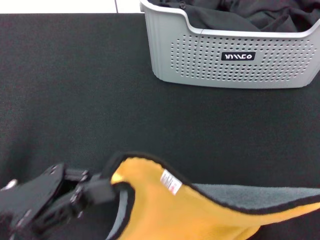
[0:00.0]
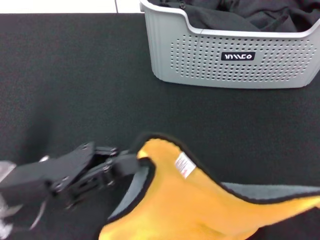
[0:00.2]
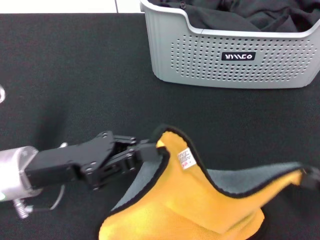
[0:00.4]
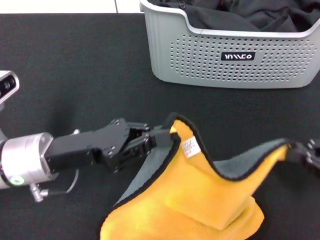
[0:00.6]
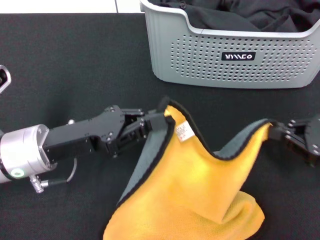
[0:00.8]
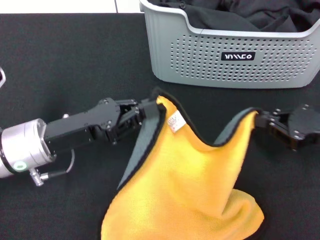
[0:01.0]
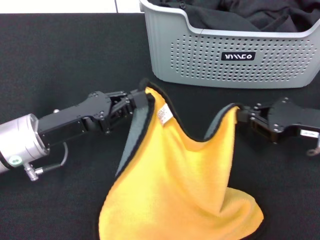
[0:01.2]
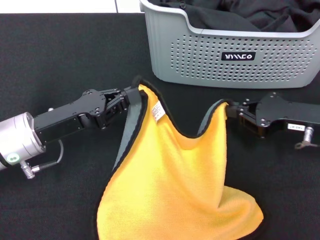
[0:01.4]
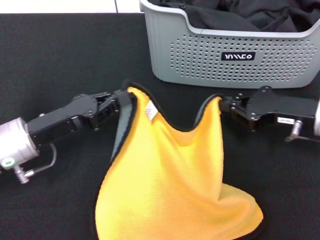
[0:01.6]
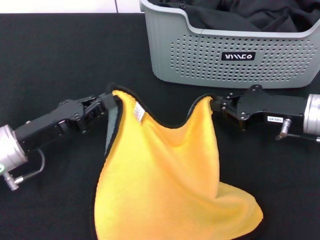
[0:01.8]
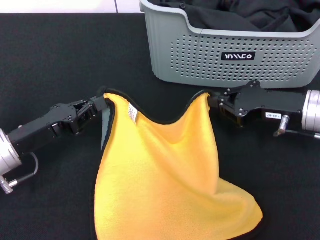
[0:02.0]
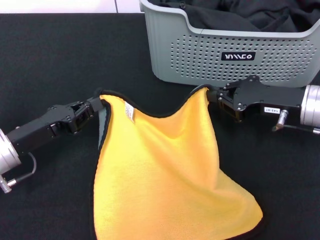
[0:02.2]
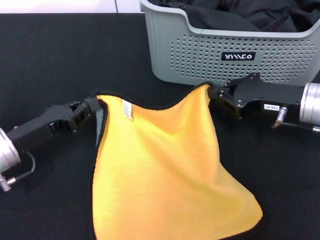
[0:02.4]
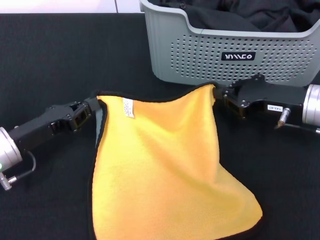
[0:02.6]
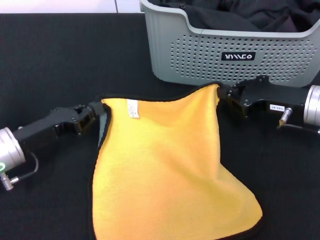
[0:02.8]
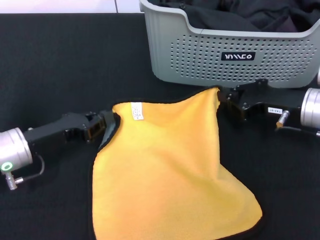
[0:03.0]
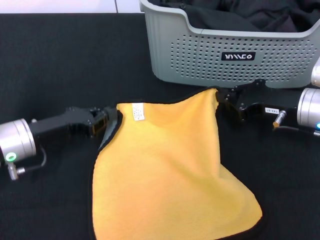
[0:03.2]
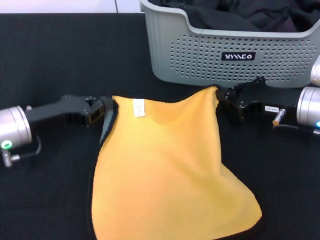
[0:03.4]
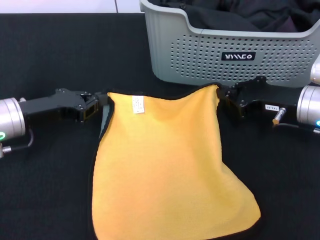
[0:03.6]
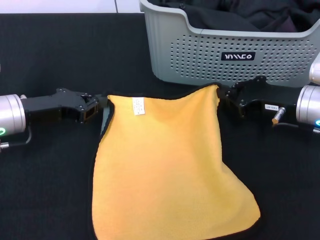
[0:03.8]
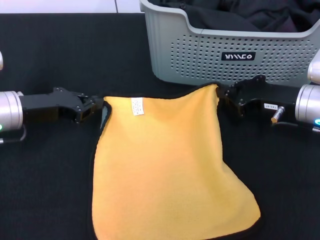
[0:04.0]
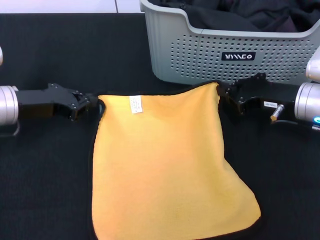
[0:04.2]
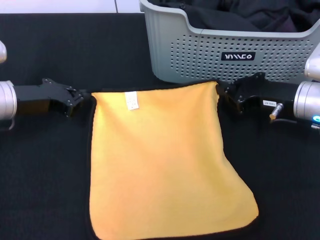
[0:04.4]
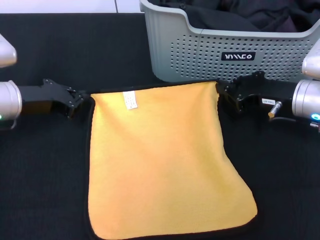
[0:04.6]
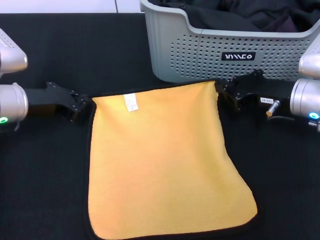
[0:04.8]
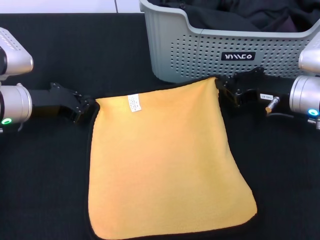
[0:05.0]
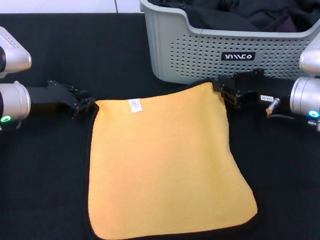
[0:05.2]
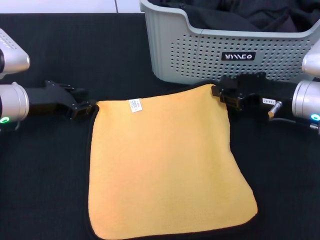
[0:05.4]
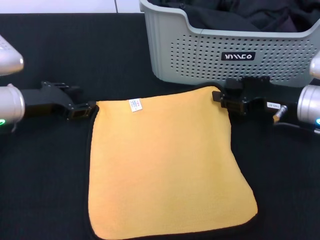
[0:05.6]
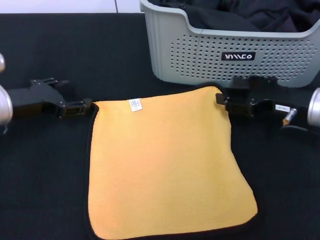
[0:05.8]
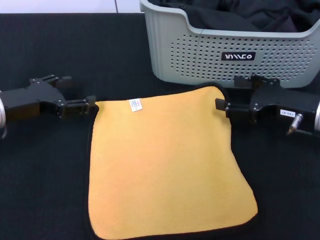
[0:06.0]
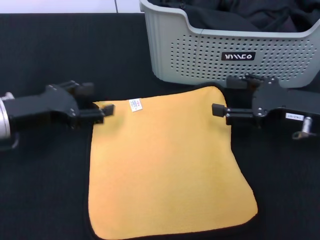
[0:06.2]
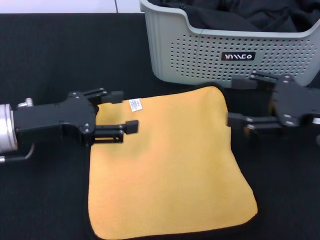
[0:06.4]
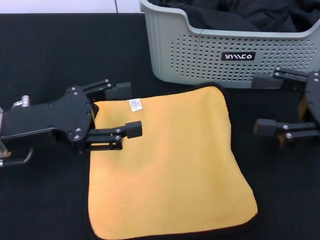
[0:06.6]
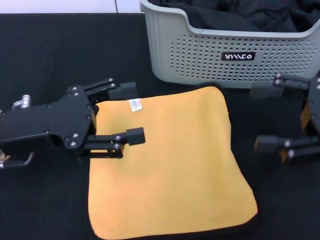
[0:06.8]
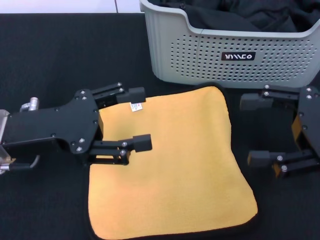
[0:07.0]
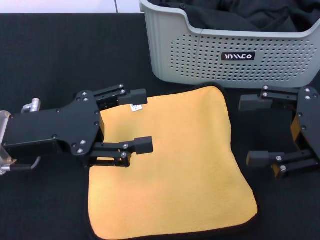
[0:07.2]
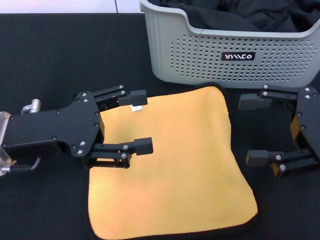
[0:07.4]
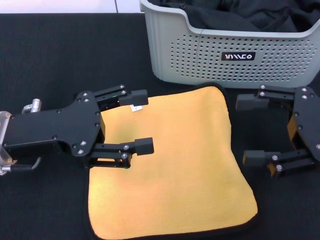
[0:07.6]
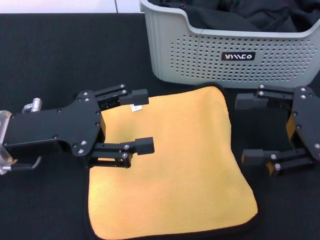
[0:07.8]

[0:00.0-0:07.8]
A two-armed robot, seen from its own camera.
Task of the whole recording: pick up the towel from the storage box and lay it flat on the black tablecloth.
Step, 0:00.0 to 0:05.4: Spread the towel flat with the right gripper.
0:00.0 to 0:01.6: The left gripper goes some 10 cm forward; the right gripper heads forward, downward and to the left, covering roughly 25 cm.
0:03.2 to 0:04.6: The left gripper heads forward, covering some 5 cm.
0:04.6 to 0:06.2: The left gripper heads backward, covering roughly 5 cm, and opens its fingers. The right gripper shifts by about 5 cm, and opens its fingers.
0:06.2 to 0:07.8: The right gripper shifts approximately 5 cm upward. Meanwhile the left gripper ends up some 5 cm from where it was.
